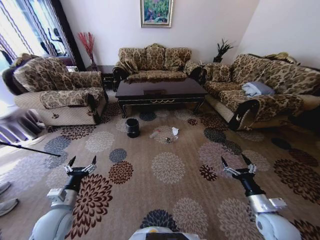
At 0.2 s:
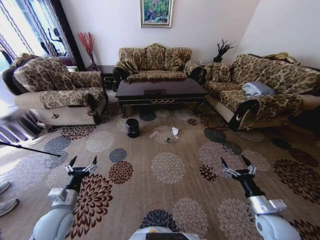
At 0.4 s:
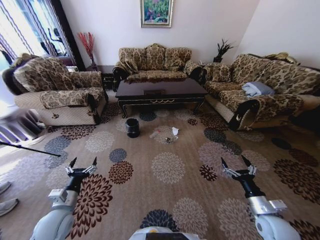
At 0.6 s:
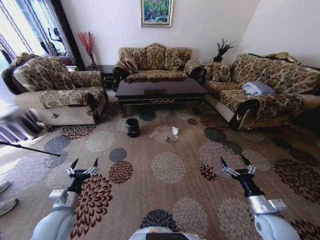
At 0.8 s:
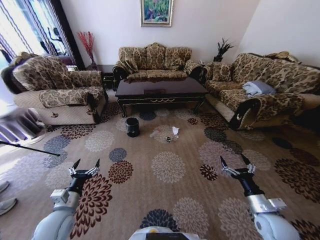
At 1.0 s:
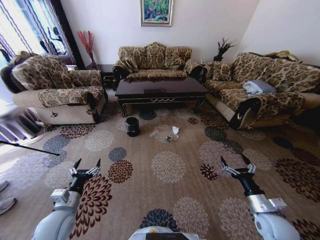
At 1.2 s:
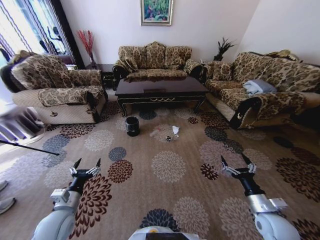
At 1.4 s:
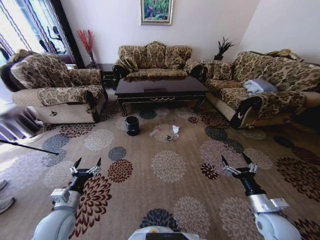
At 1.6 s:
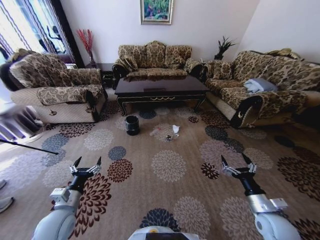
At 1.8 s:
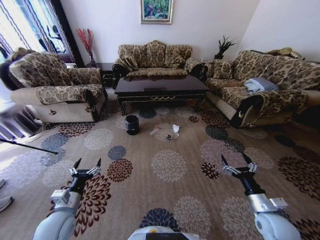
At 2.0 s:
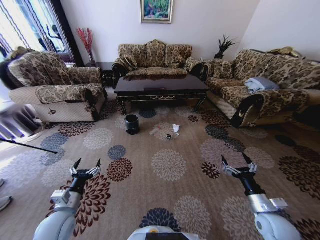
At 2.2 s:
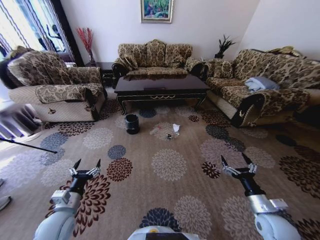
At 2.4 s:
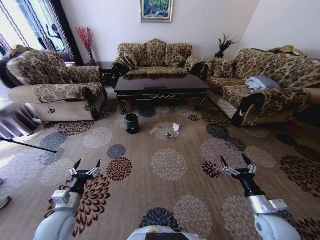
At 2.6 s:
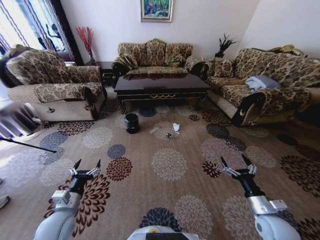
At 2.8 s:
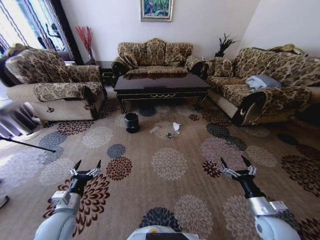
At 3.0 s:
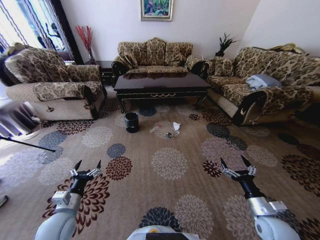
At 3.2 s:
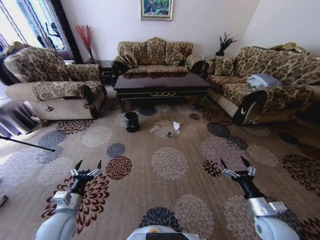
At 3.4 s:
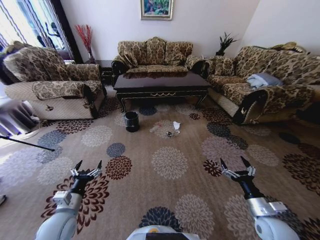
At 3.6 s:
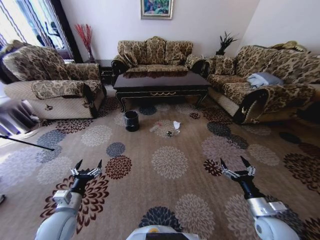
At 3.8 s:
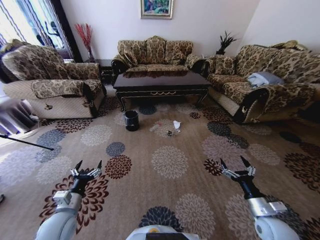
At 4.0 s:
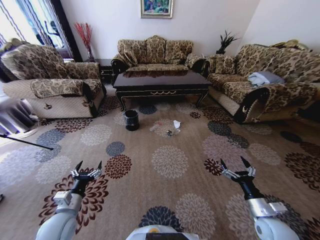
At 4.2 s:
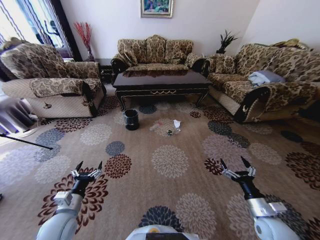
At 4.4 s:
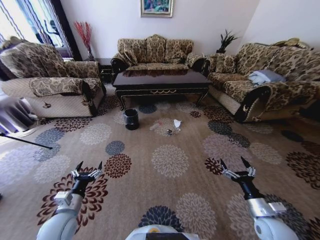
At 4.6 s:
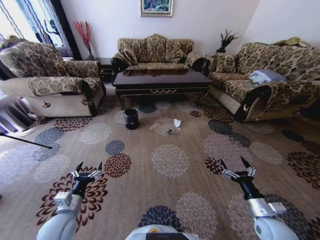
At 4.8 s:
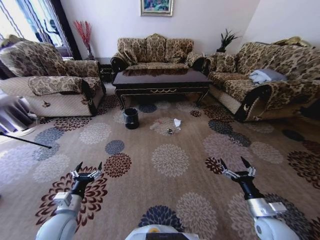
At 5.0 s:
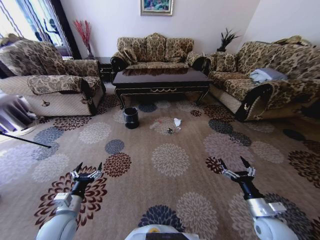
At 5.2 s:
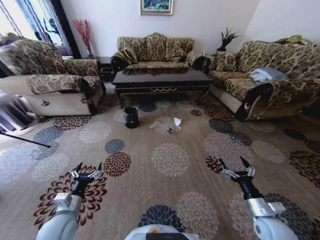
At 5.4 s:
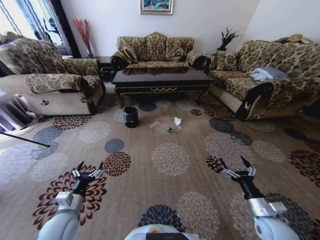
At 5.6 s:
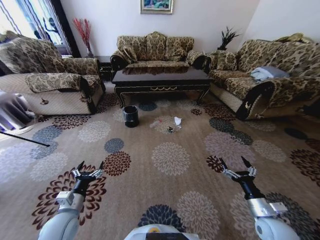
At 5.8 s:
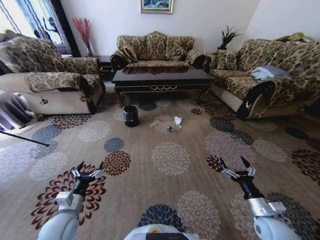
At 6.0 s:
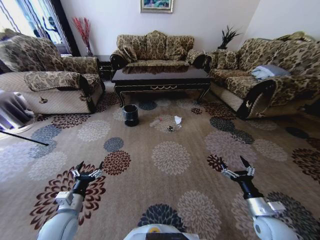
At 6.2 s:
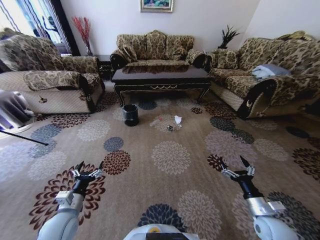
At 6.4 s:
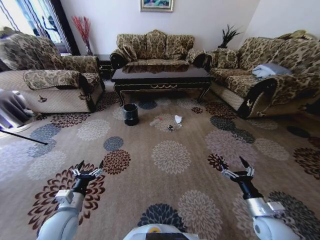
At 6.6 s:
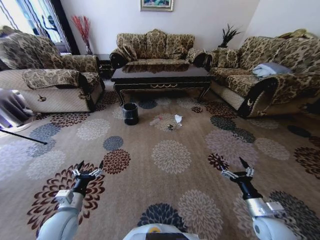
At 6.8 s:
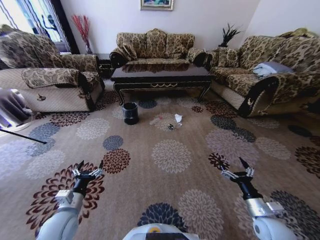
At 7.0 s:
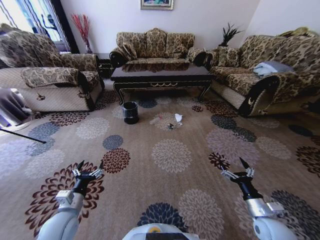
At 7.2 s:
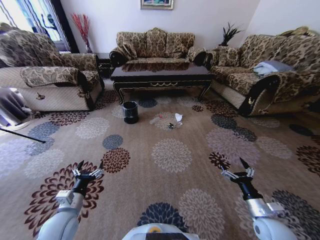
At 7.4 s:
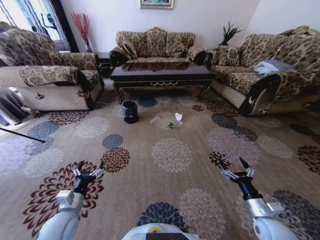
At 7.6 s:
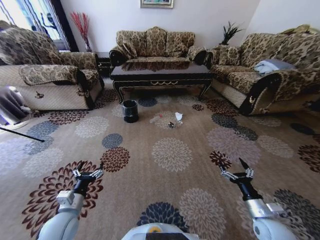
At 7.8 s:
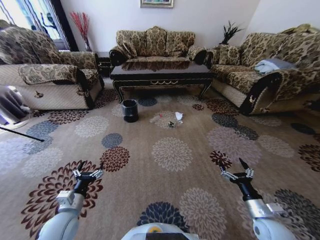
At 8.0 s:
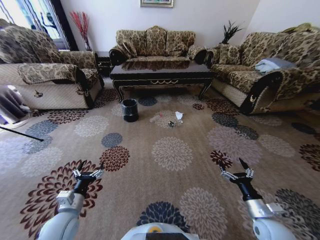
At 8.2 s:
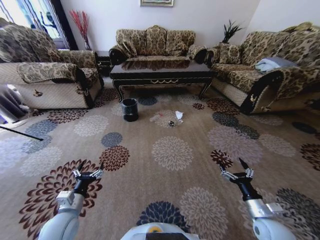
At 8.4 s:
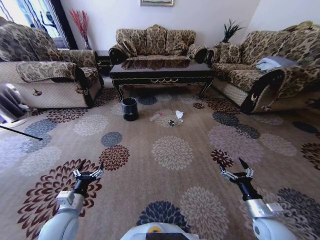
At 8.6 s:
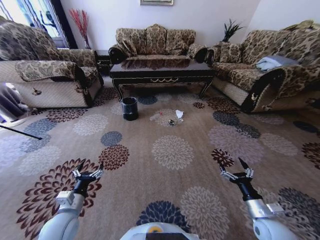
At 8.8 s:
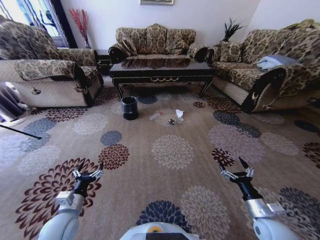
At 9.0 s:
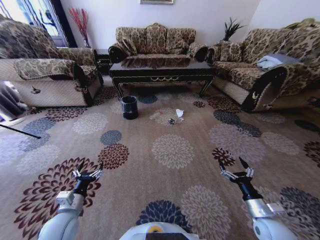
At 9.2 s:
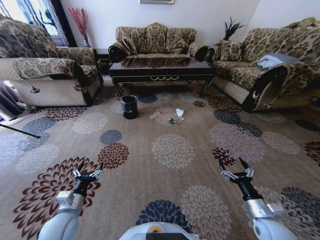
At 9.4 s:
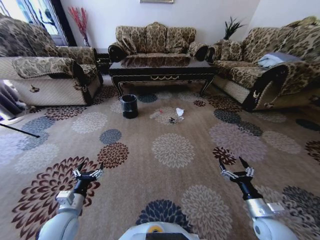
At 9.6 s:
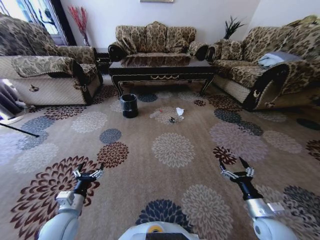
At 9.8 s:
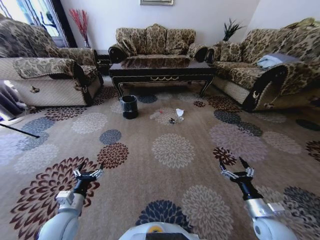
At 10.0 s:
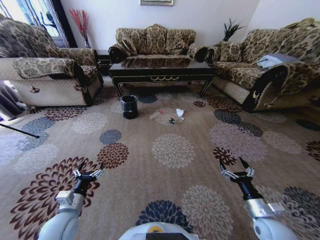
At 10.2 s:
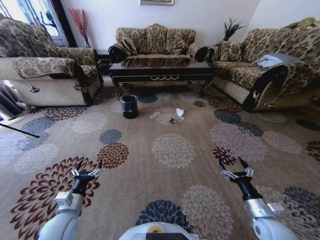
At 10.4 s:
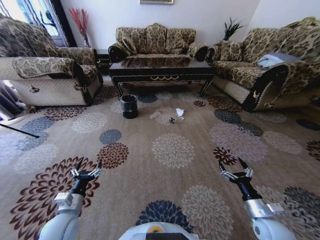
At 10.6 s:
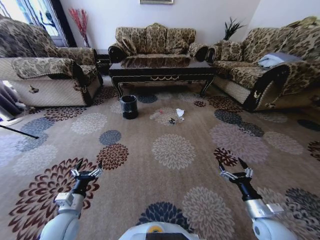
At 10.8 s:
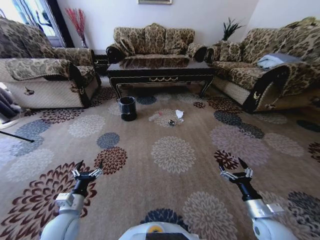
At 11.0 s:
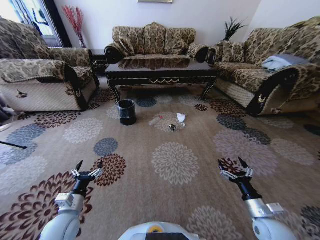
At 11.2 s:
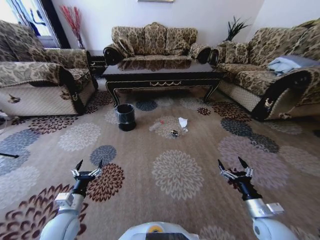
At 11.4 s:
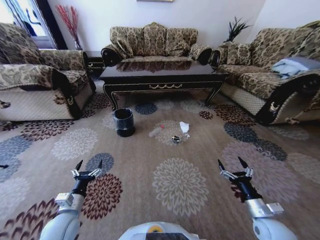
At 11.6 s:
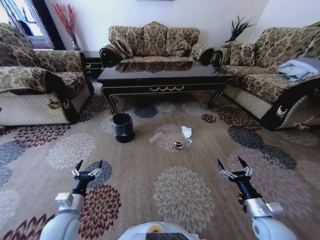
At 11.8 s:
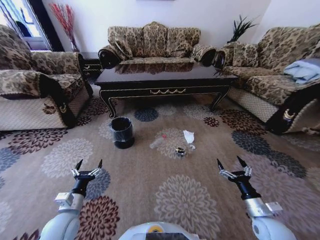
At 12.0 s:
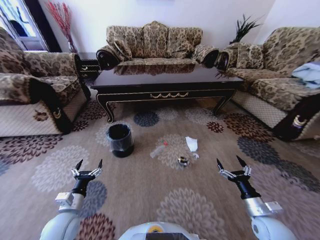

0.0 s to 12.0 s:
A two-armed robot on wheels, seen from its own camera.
Task of the whole recording: Move to the front of the table and pick up the trash from the floor, then place it into the trash bin.
9.0 to 10.4 s: The two grippers keep their place.

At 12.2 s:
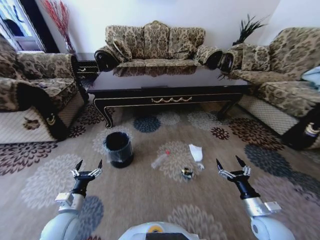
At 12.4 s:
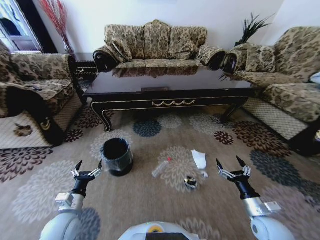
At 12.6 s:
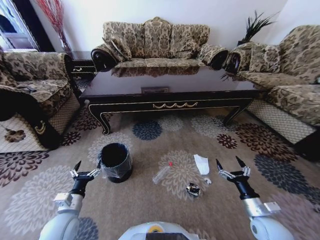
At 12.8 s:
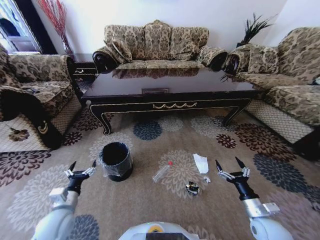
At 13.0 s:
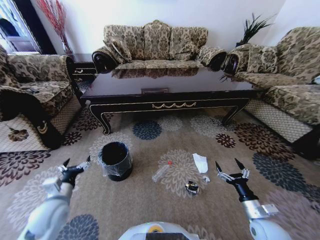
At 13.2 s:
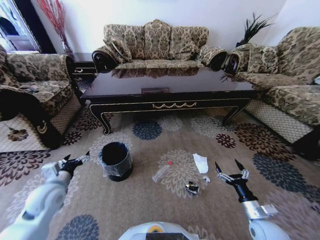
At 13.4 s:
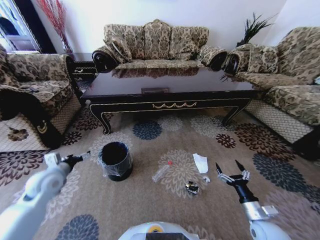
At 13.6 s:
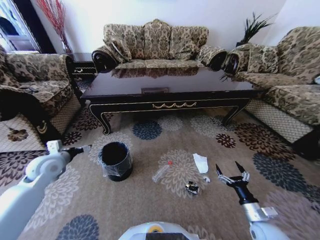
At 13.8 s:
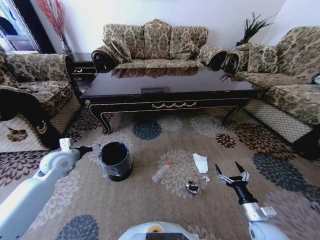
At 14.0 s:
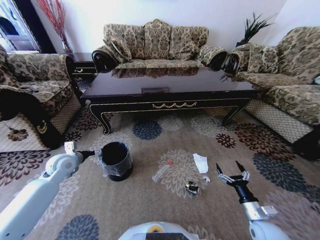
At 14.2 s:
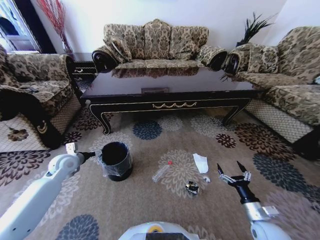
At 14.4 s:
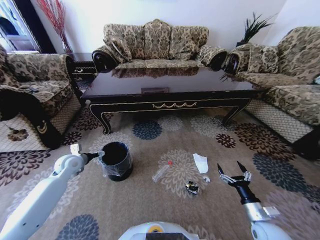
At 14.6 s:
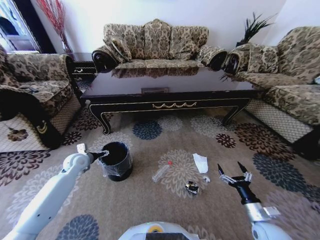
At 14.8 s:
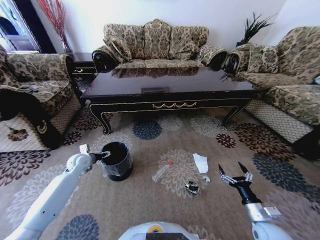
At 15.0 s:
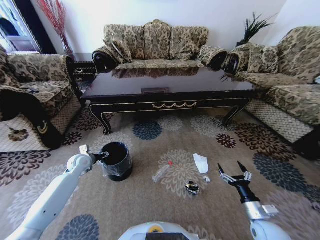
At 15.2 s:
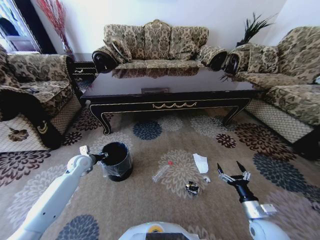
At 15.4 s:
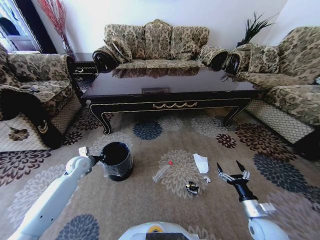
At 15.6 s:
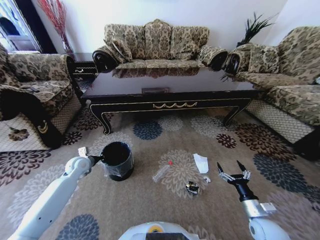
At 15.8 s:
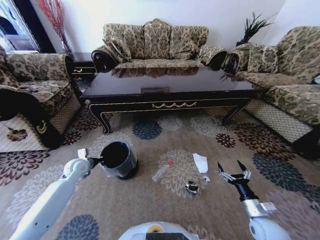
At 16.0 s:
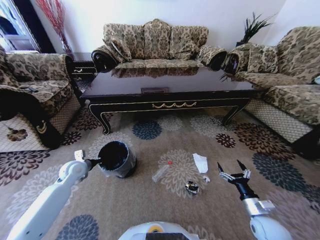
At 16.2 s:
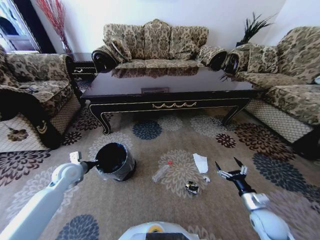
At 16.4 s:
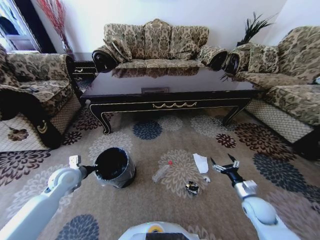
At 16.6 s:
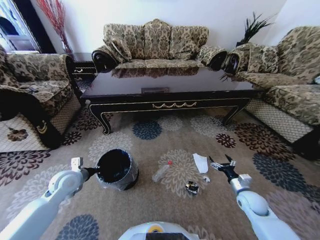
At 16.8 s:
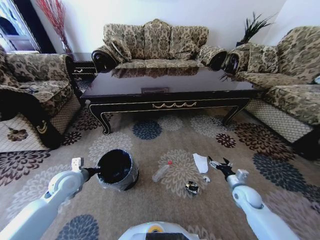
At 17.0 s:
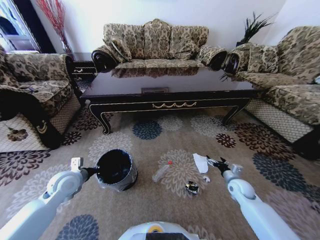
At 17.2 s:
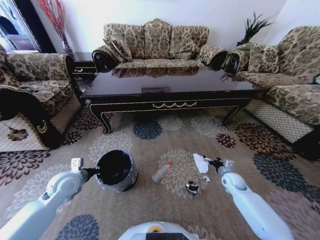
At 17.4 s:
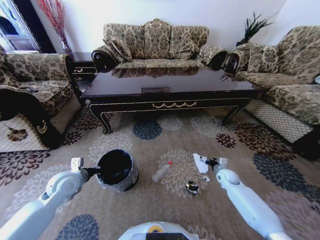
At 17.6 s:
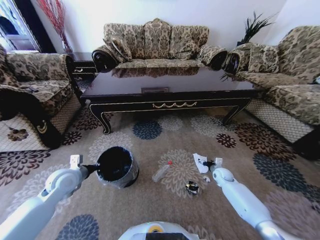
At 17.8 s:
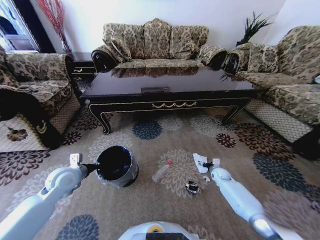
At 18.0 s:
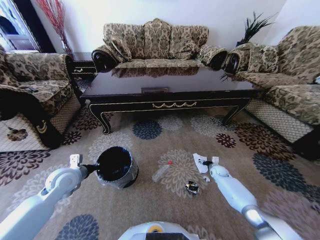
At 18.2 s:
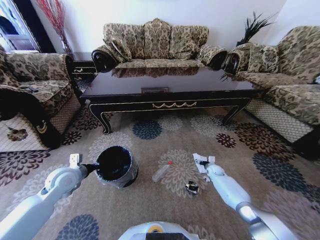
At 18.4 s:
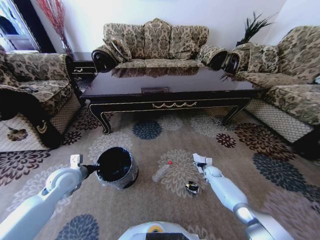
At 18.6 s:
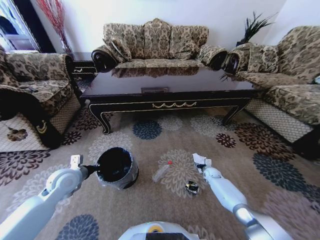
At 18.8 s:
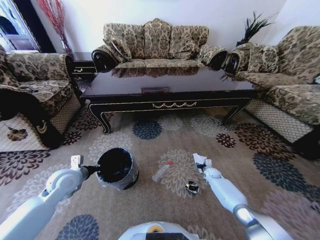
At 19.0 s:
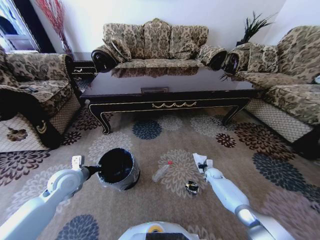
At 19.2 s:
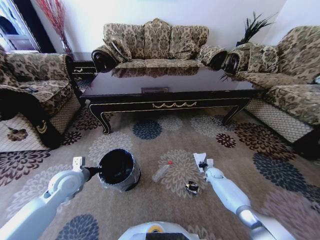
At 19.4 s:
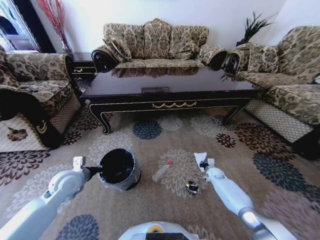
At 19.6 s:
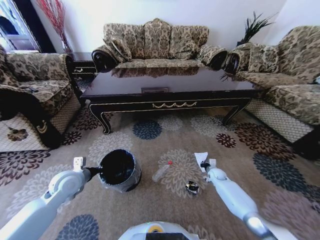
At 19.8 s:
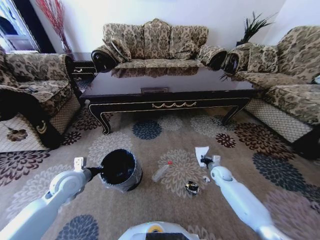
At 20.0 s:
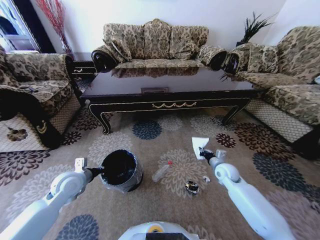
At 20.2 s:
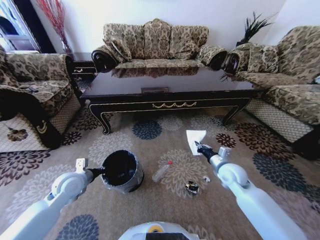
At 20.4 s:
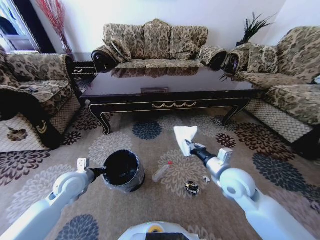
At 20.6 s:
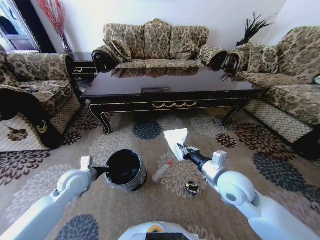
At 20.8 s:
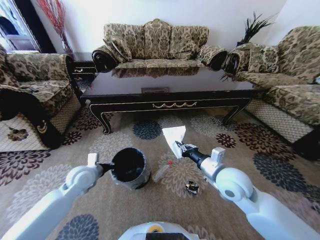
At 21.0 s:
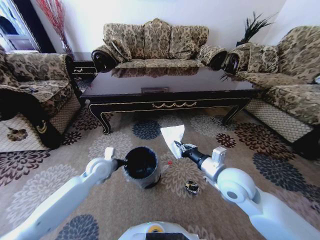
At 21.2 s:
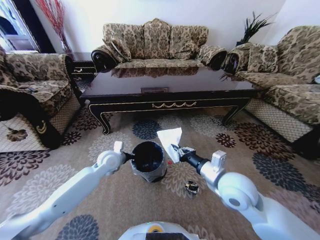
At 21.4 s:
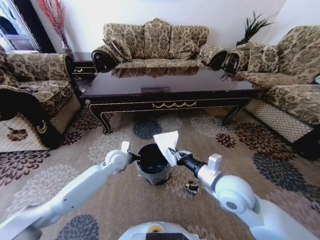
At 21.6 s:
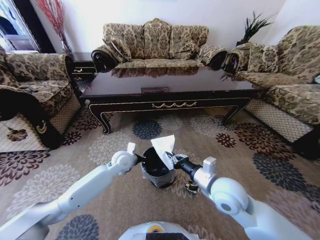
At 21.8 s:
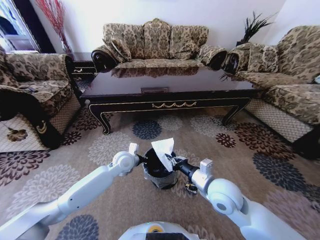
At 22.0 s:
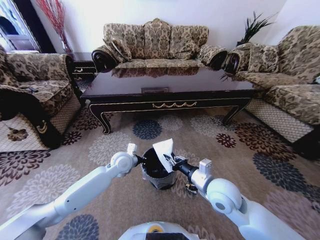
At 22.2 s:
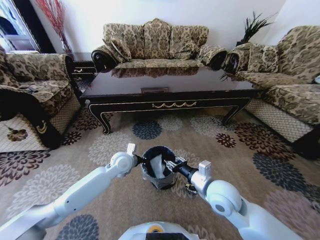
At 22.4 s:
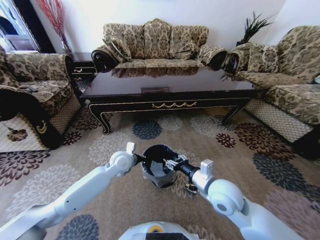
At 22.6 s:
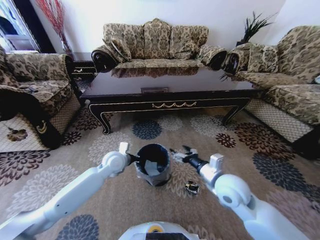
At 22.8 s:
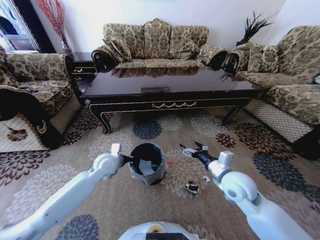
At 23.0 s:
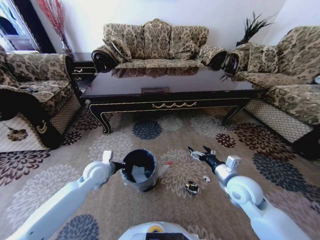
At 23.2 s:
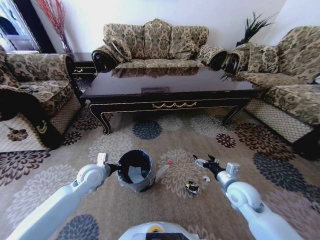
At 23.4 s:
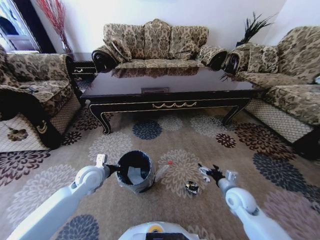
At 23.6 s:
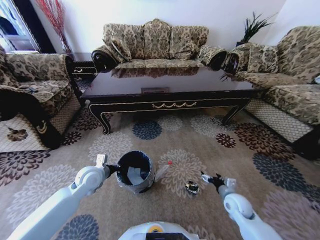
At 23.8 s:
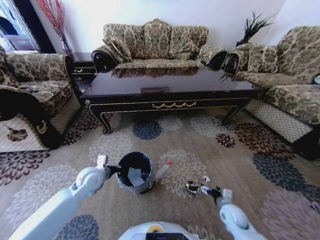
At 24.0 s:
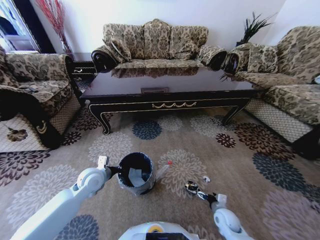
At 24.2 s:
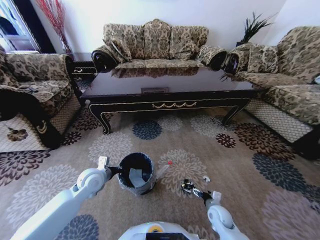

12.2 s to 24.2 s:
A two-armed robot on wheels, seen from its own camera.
Task of the whole recording: Move to the front of the table and pick up the trash from the floor, then place it into the trash bin.
12.2 to 13.8 s: The left gripper travels forward and upward by approximately 20 cm.
13.8 to 15.2 s: The left gripper moves downward and forward, about 10 cm, and closes.
15.2 to 16.6 s: The right gripper is displaced forward by about 10 cm, while the left gripper shifts about 10 cm backward, and closes up.
16.6 to 18.2 s: The right gripper is displaced forward and downward by approximately 25 cm.
18.2 to 19.8 s: The right gripper goes roughly 10 cm upward and backward, and closes.
19.8 to 21.2 s: The left gripper travels to the right and forward by about 15 cm. The right gripper travels upward, backward and to the left by roughly 30 cm.
21.2 to 22.6 s: The right gripper opens its fingers.
22.6 to 24.2 s: The left gripper moves to the left and backward, about 10 cm. The right gripper travels downward by approximately 25 cm.
